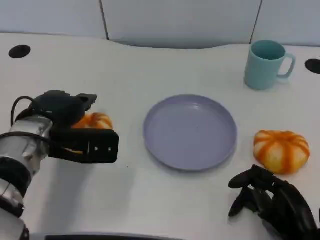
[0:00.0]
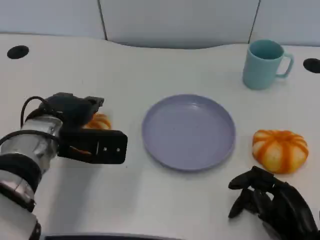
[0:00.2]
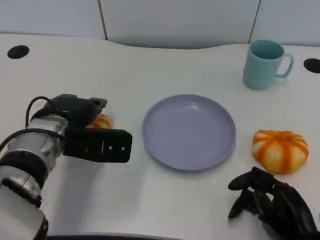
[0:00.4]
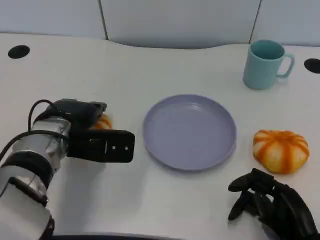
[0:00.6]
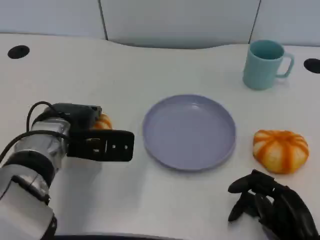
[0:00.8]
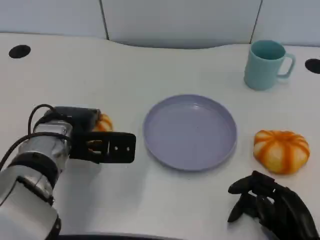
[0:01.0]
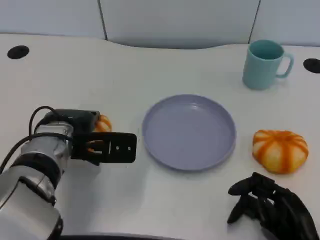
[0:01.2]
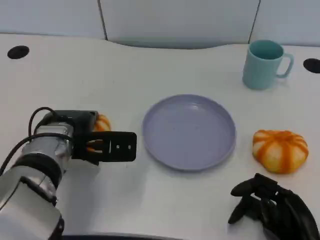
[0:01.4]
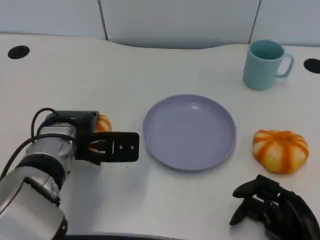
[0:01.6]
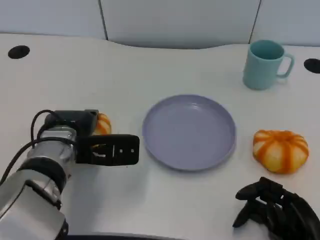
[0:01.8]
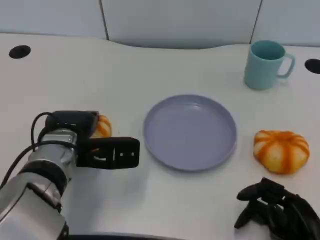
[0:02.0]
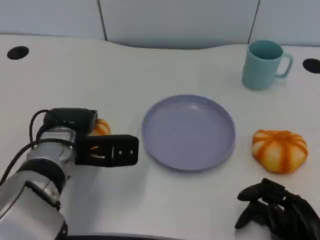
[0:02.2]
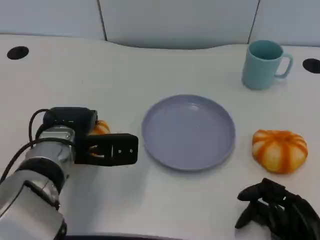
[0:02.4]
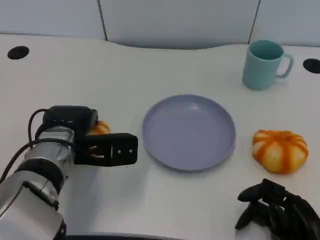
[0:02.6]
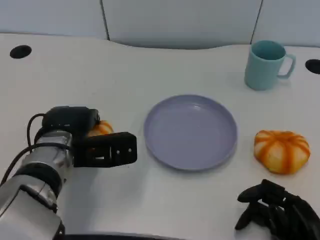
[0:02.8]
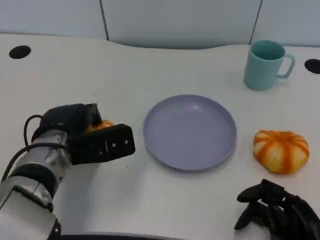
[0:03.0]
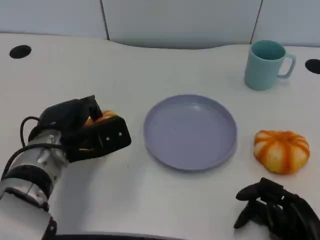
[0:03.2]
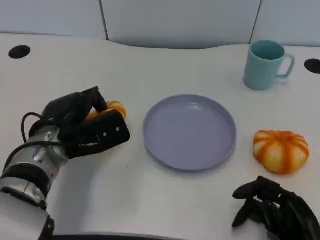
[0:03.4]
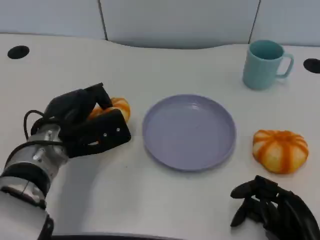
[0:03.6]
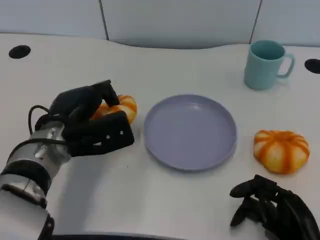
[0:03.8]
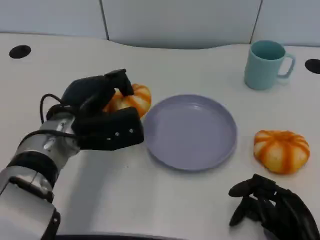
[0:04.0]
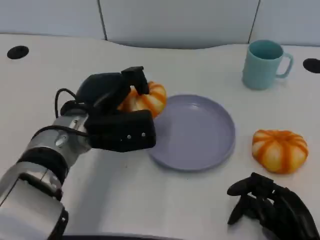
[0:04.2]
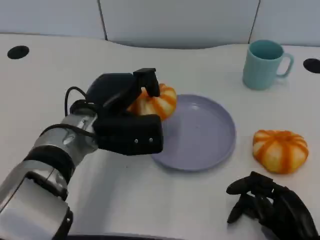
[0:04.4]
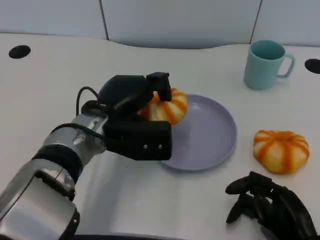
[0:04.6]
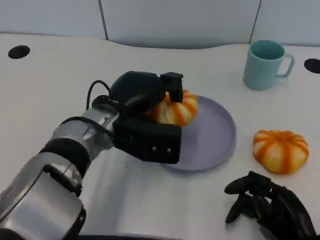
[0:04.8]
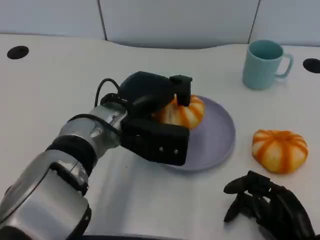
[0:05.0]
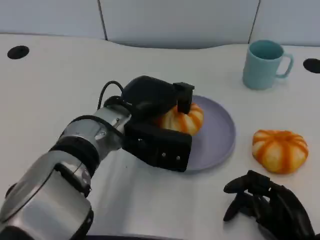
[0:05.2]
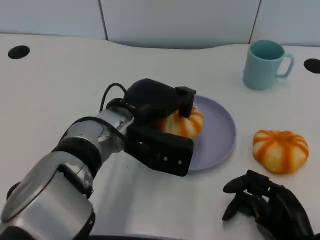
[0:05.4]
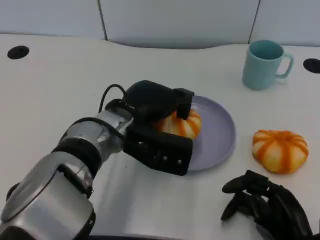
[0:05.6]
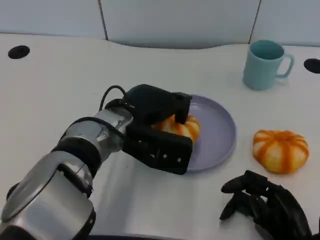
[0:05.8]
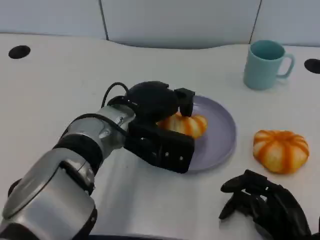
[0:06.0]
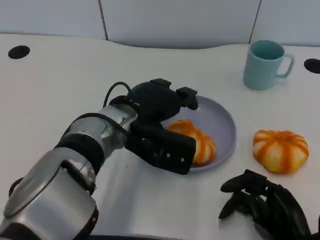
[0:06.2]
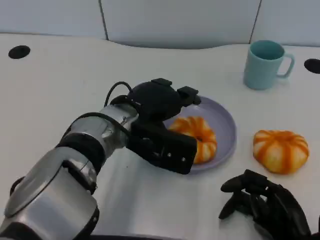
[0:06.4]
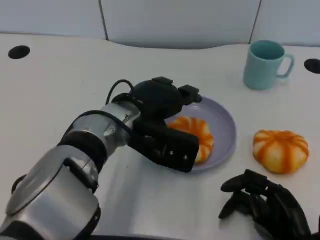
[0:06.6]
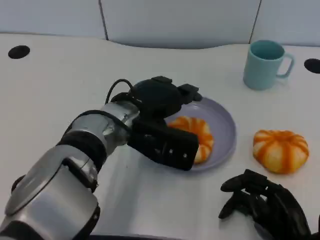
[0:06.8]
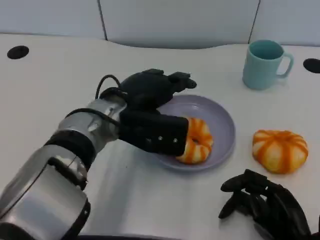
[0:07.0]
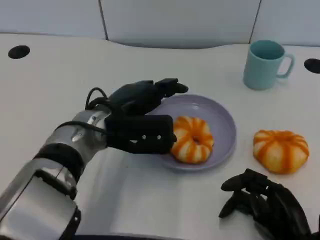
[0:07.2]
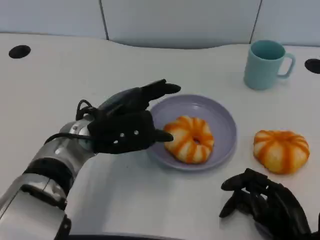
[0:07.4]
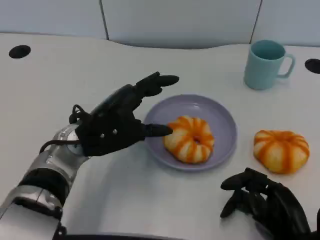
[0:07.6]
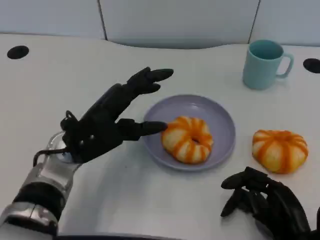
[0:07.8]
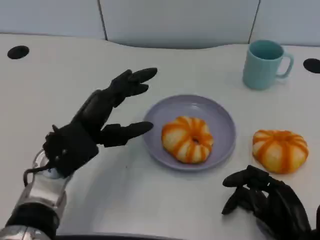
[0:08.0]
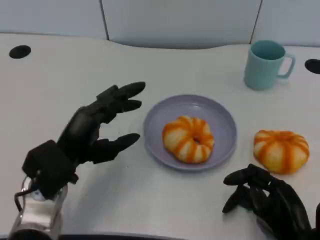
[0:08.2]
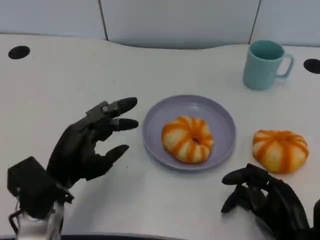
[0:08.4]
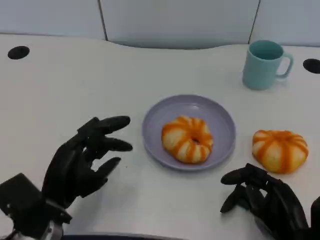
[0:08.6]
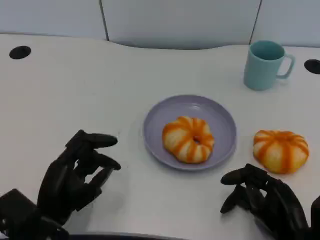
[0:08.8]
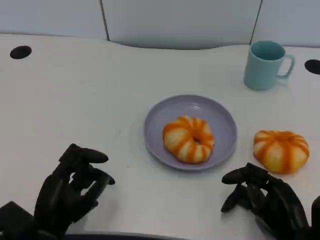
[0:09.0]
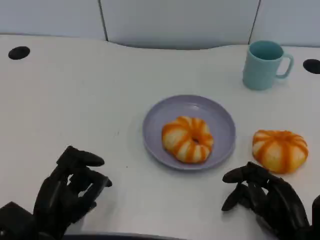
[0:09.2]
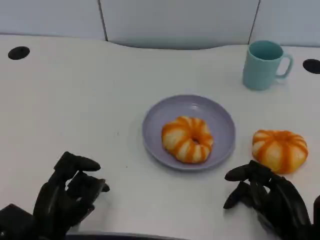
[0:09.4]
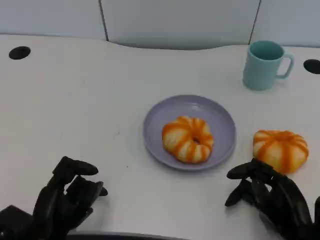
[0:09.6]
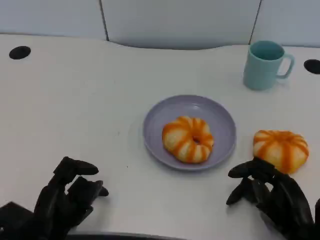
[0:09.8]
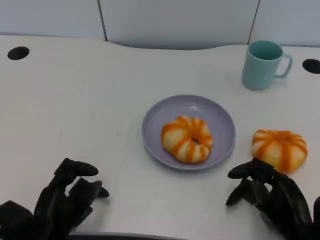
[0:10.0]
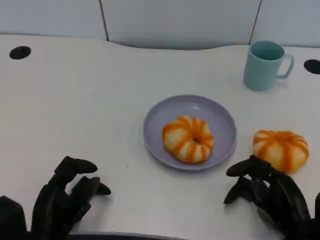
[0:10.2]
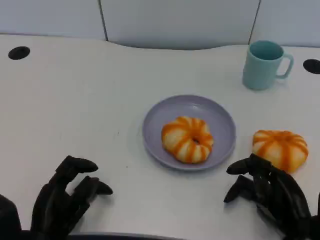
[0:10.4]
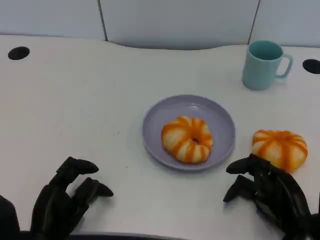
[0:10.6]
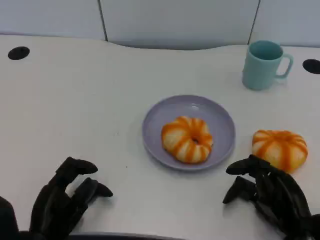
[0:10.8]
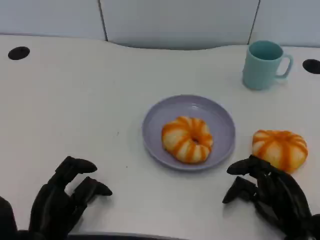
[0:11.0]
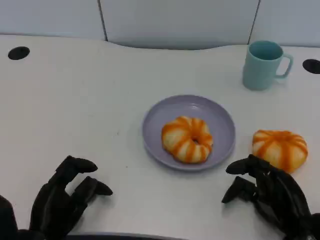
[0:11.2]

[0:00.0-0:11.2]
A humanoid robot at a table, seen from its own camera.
Task of the whole recording: Grasp the bread from the table and place it into the plate.
0:00.0 to 0:01.6: There are only small adjustments of the hands.
0:03.2 to 0:04.8: The left hand is displaced to the right by some 10 cm.
0:04.8 to 0:06.4: The hands move only a little.
0:06.4 to 0:08.0: The left hand heads to the left, covering approximately 10 cm.
0:08.0 to 0:09.6: The left hand travels backward and downward by roughly 15 cm.
0:09.6 to 0:11.2: There are only small adjustments of the hands.

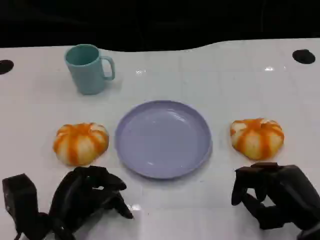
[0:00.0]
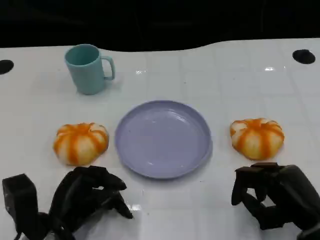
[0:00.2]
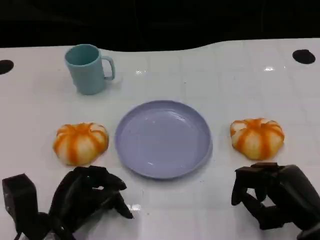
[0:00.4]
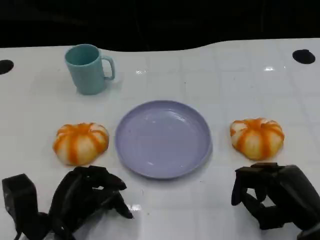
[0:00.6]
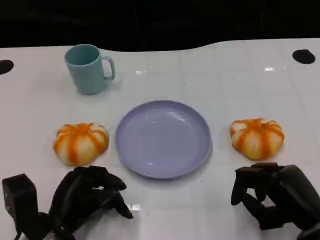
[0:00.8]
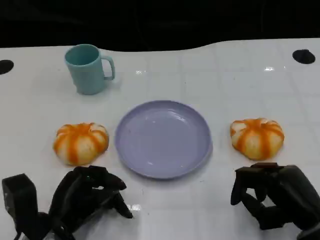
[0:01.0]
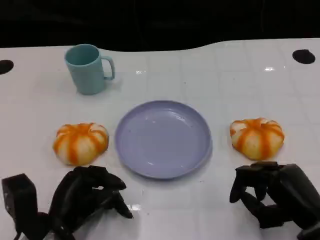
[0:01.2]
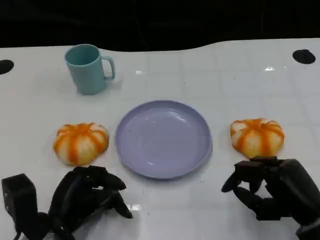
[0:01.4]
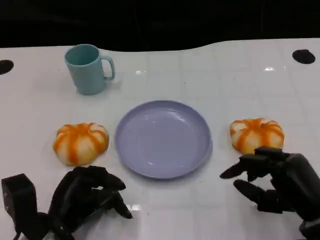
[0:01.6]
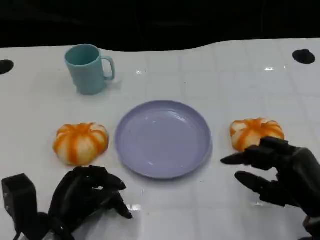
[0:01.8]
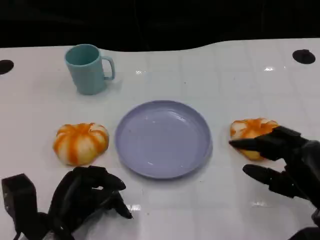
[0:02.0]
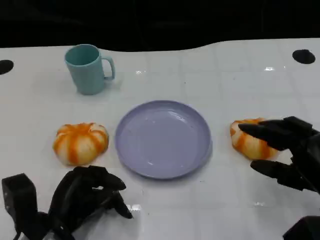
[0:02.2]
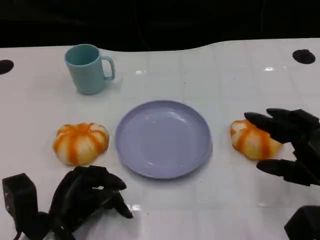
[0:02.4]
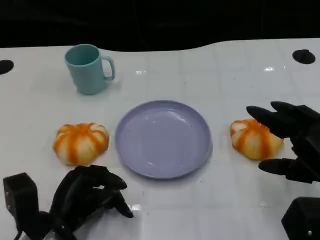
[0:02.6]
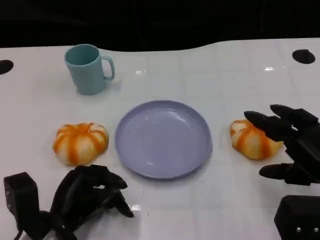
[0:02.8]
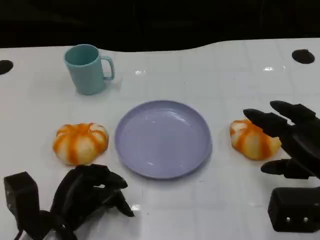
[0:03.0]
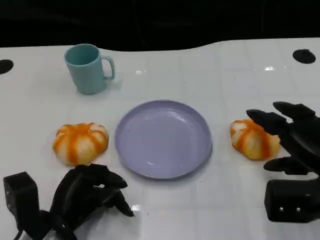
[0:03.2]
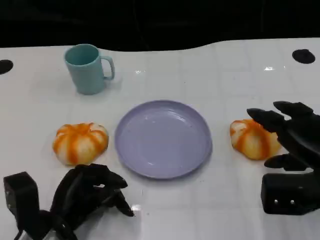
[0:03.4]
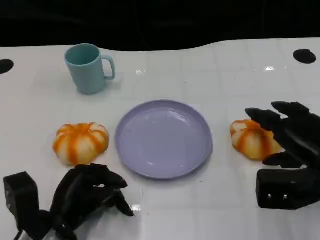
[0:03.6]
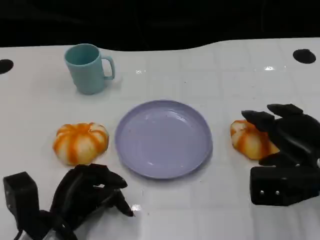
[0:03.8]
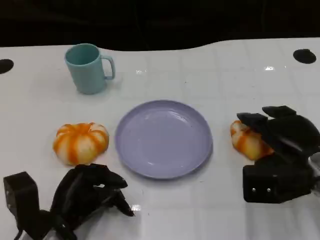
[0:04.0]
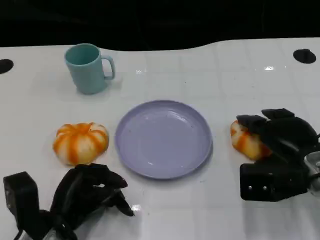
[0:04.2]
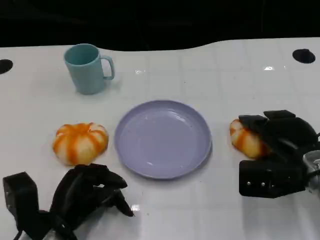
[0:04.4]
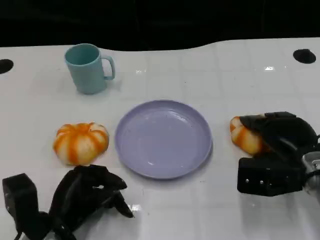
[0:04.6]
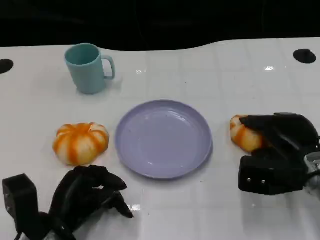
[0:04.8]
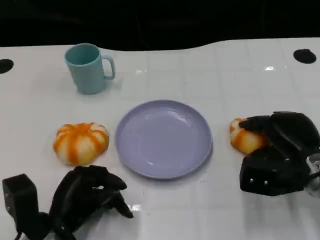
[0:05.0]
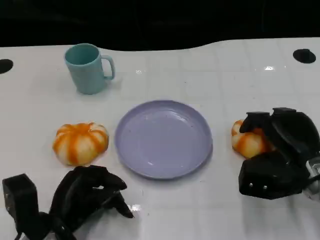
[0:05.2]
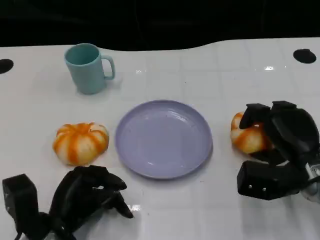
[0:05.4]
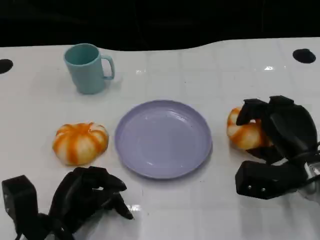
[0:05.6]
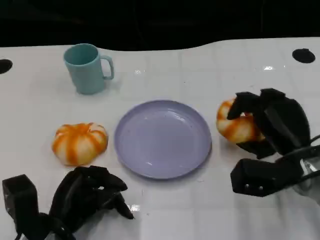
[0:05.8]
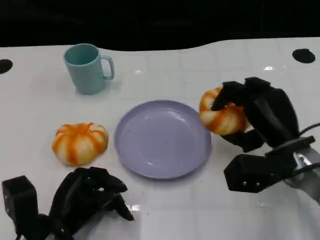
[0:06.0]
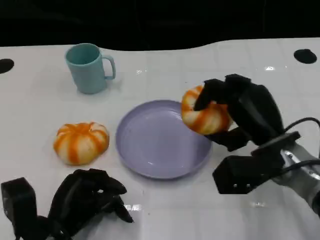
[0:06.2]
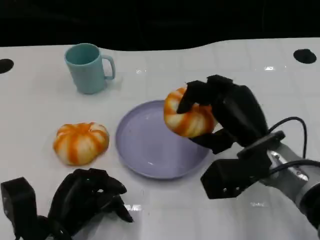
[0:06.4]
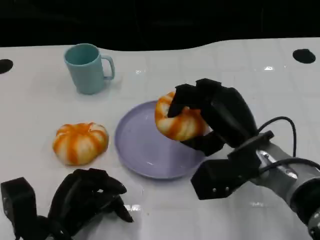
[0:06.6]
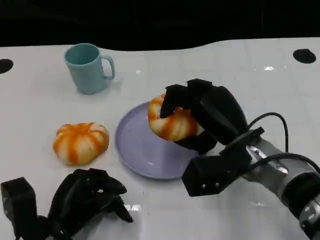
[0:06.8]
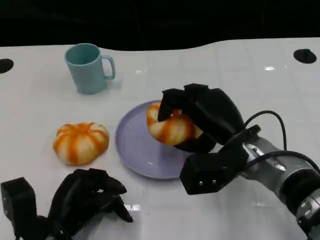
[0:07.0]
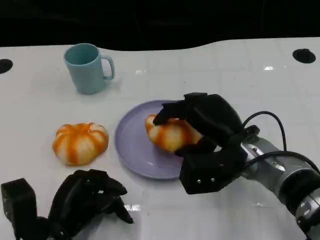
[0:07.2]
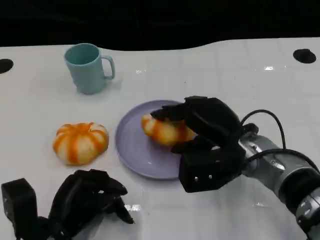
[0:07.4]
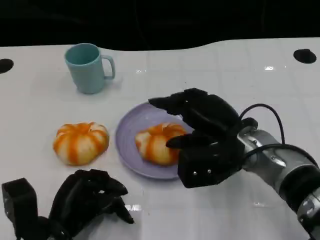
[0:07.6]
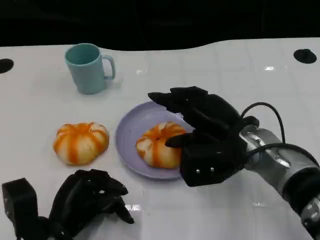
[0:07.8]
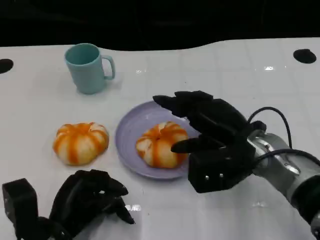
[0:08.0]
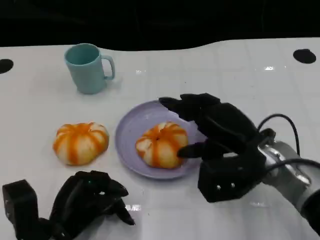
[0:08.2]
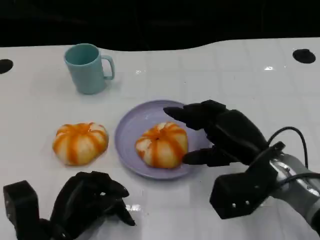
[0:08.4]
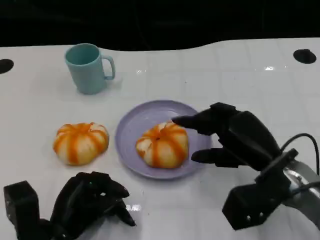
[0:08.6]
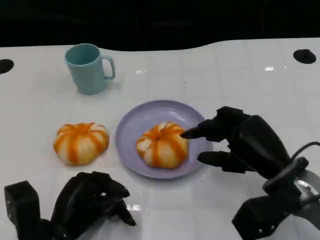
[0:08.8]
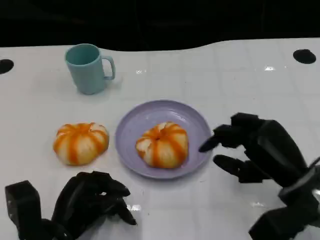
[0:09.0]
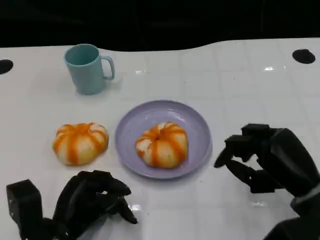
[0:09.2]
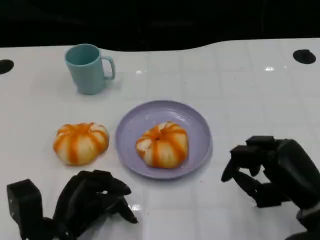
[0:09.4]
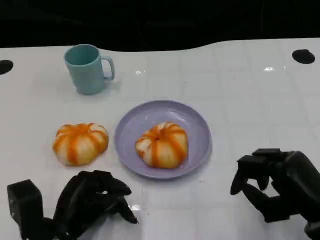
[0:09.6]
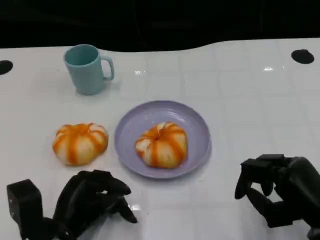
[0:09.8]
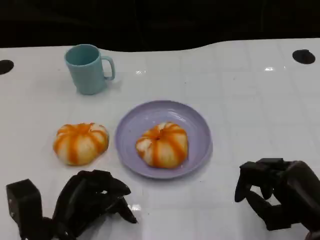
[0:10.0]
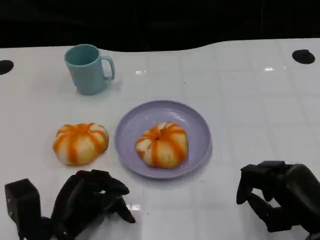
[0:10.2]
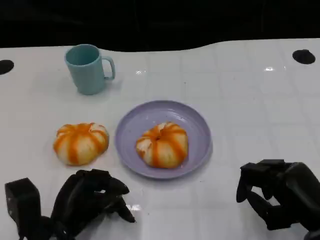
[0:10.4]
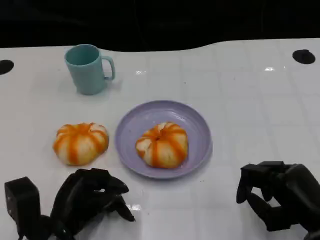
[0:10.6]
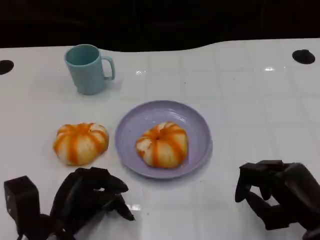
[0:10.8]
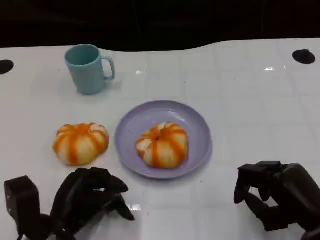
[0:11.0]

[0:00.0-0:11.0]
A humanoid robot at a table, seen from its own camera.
Task of the whole recording: Grasp the bread from the table and place it into the plate.
0:00.0 to 0:01.6: There are only small adjustments of the hands.
0:01.6 to 0:03.2: The right hand shifts by approximately 5 cm.
0:03.2 to 0:04.8: The right hand shifts by roughly 5 cm.
0:04.8 to 0:06.2: The right hand shifts about 5 cm to the left.
0:07.8 to 0:09.4: The right hand moves to the right and backward, roughly 15 cm.
0:09.4 to 0:11.0: The hands stay close to where they were, moving slightly.
